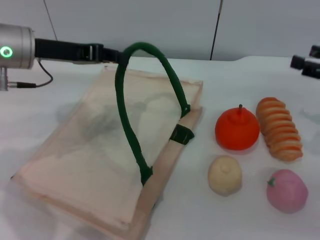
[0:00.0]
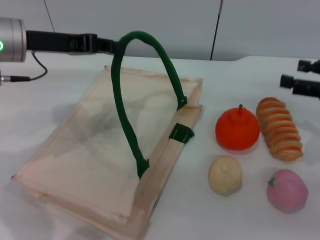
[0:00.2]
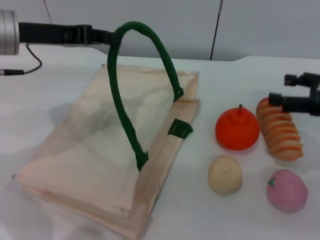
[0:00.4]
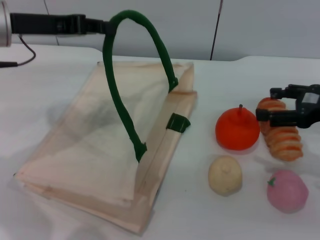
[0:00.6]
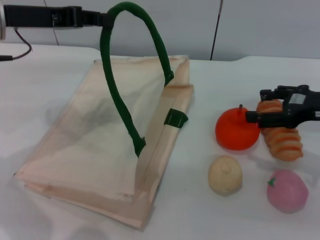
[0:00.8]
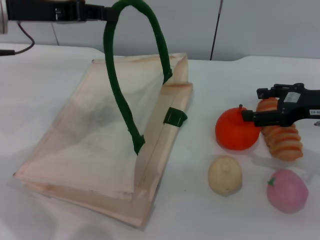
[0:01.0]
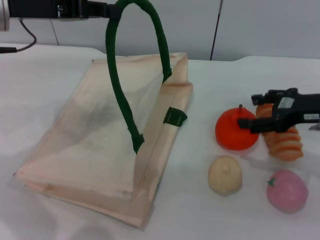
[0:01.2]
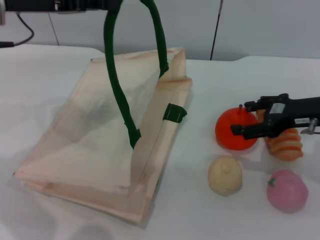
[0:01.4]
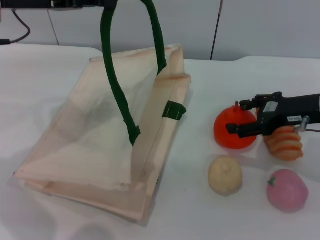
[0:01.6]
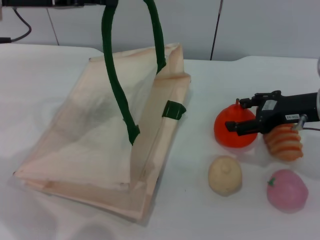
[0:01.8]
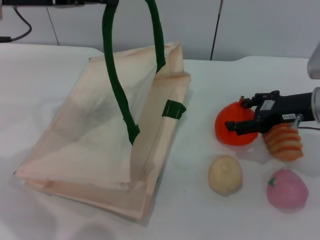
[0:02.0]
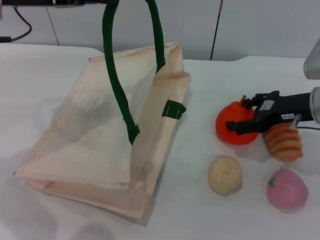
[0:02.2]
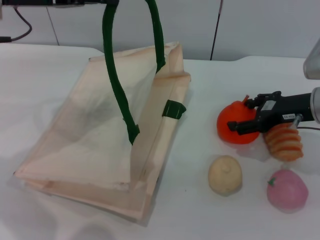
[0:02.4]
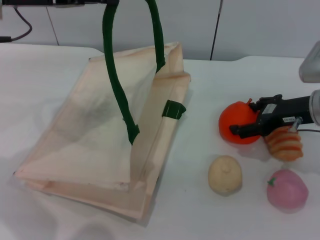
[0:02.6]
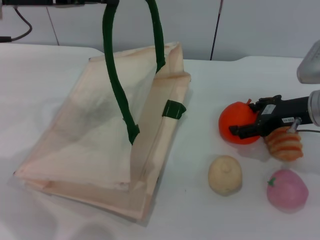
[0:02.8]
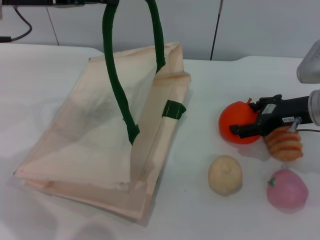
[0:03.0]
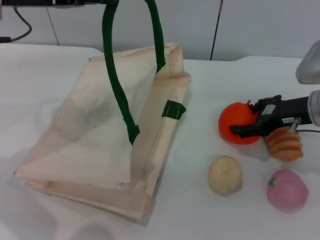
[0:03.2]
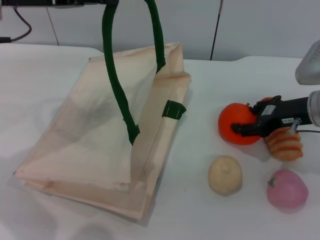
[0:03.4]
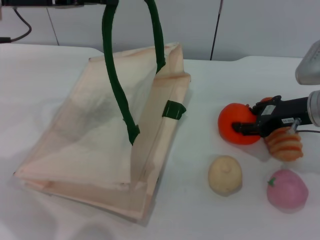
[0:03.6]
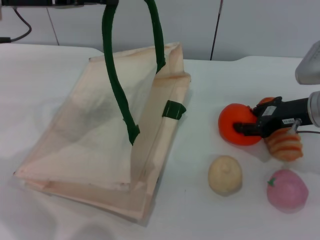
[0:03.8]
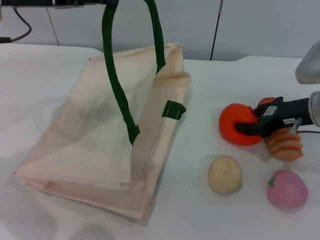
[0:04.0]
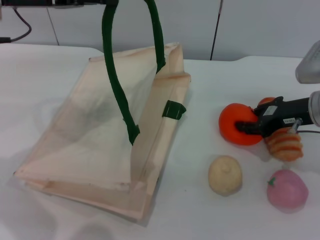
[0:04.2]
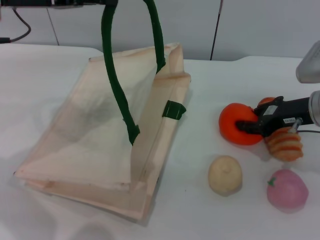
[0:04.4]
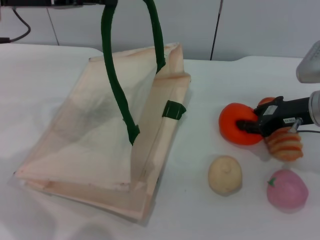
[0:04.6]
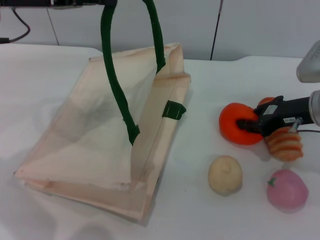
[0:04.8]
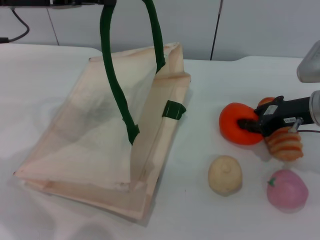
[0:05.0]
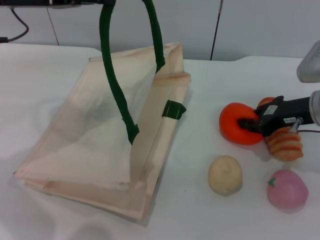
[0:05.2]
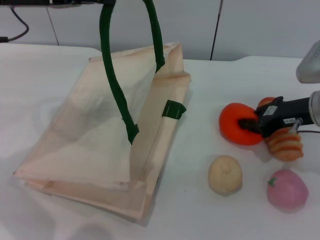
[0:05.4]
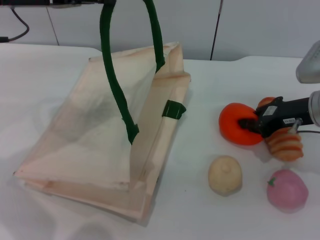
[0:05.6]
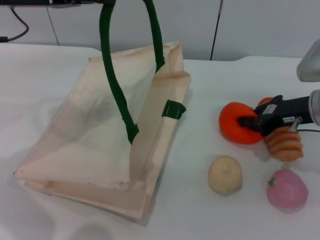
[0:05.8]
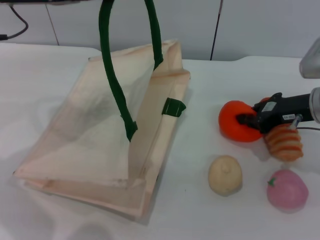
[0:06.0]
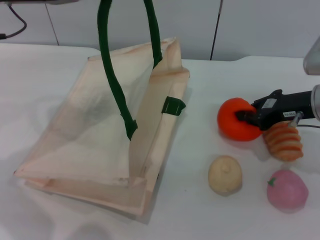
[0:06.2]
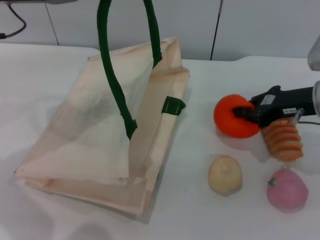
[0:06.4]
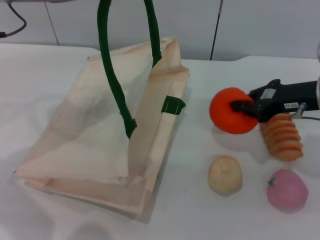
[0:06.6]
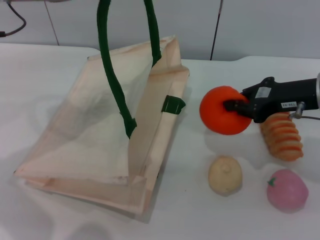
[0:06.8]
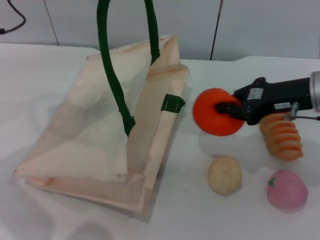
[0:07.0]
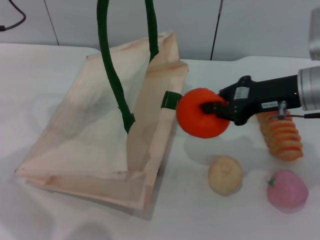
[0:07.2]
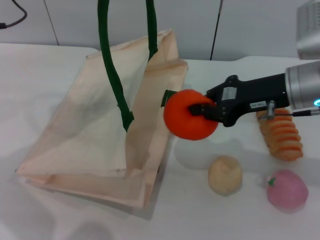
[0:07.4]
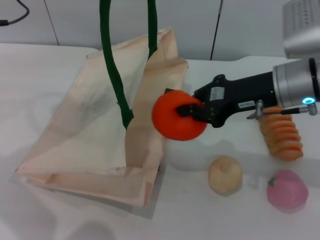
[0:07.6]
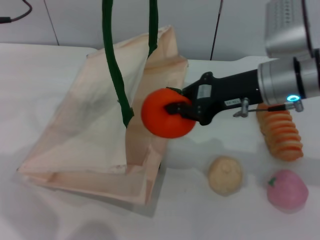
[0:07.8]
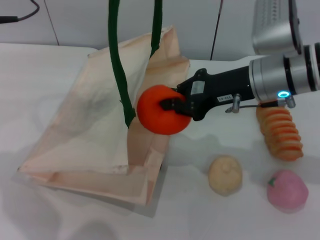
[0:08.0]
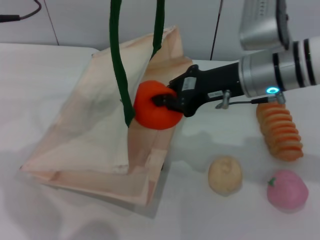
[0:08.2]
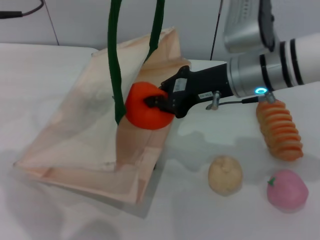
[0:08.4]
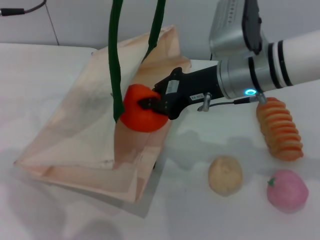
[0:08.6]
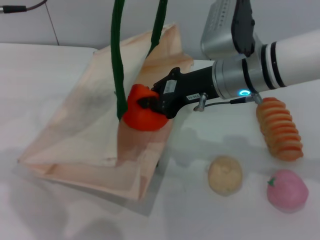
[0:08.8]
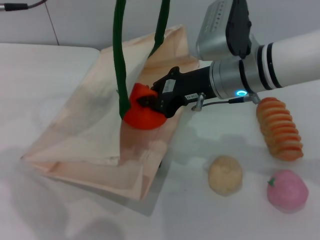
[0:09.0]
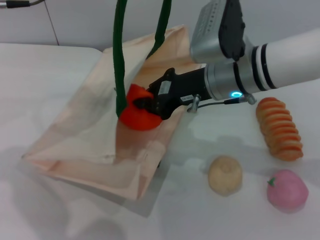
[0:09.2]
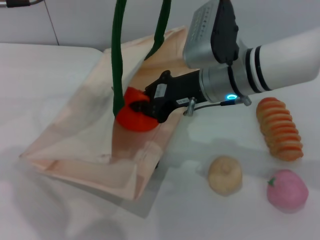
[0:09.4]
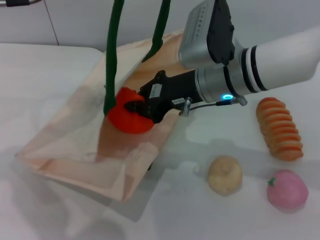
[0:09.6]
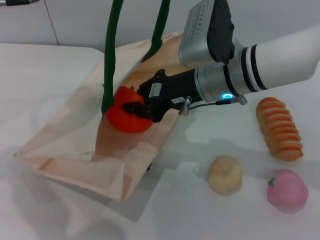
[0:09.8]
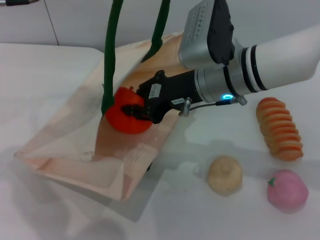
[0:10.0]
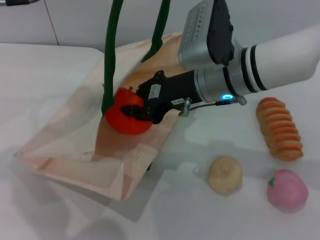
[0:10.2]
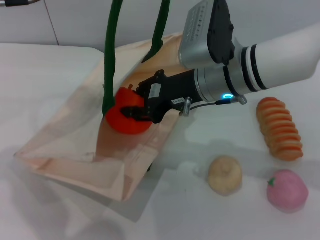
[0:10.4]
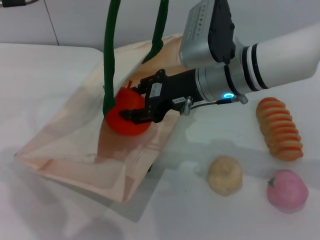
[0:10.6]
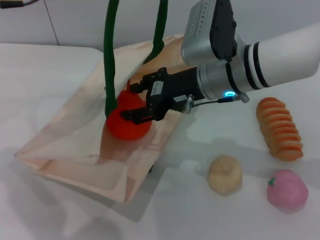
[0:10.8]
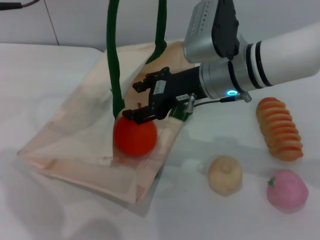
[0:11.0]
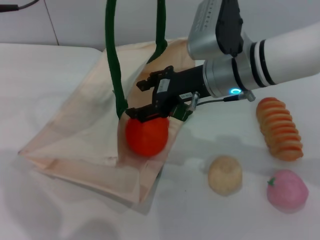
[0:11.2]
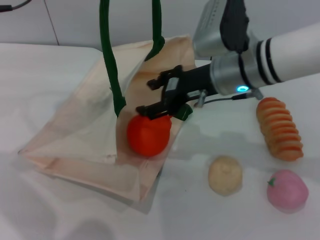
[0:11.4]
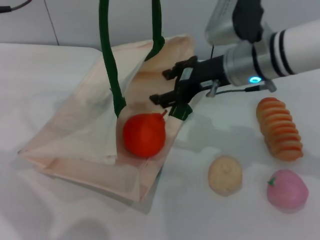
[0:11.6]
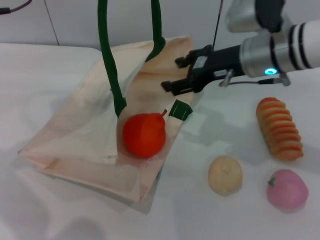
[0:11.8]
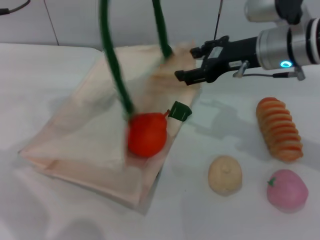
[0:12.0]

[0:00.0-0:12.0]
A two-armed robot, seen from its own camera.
Task of the whole recording: pick up the orange from the table and place it in the white handbag.
Step, 0:00.0 to 0:06.2: Pick up the orange with the right gripper.
Step, 0:06.6 to 0:11.2: Place the orange into the woven bag with the right gripper.
0:00.0 to 0:01.6: The right gripper is displaced to the left by some 10 cm; the left gripper moves upward, approximately 5 cm.
0:01.6 to 0:03.0: The grippers make only small movements.
0:03.0 to 0:04.4: The right gripper closes up.
0:04.4 to 0:06.0: Both grippers stay about where they are.
0:06.0 to 0:07.6: The right gripper is displaced to the left and upward by roughly 10 cm.
0:07.6 to 0:09.0: The right gripper is displaced to the left by approximately 10 cm.
0:09.0 to 0:10.4: The grippers move only a little.
0:10.4 to 0:12.0: The right gripper moves to the right, roughly 10 cm, and opens its fingers.

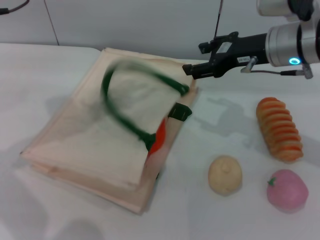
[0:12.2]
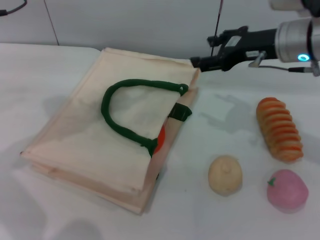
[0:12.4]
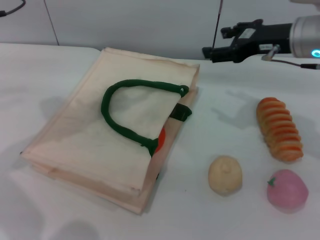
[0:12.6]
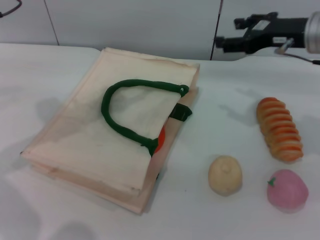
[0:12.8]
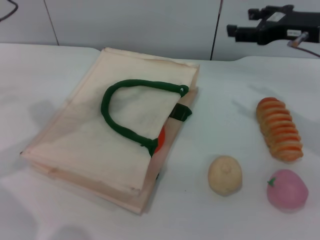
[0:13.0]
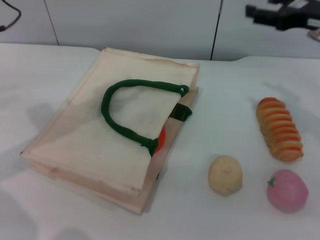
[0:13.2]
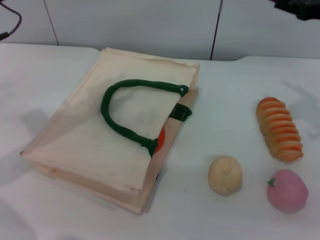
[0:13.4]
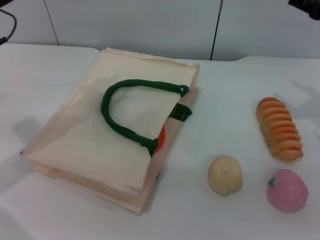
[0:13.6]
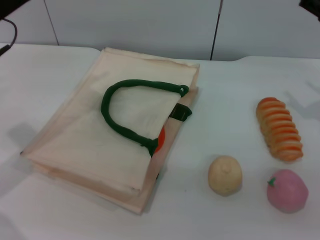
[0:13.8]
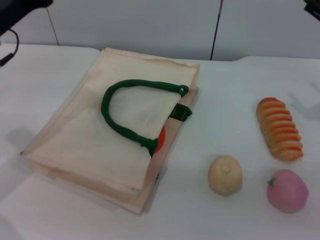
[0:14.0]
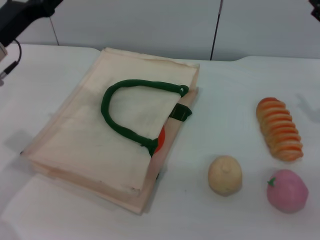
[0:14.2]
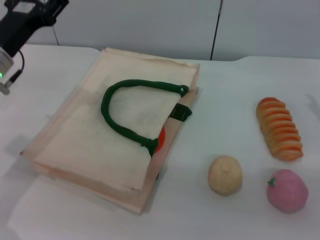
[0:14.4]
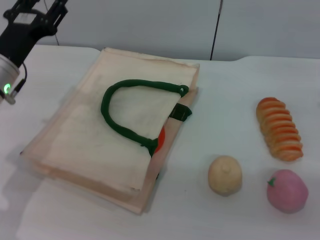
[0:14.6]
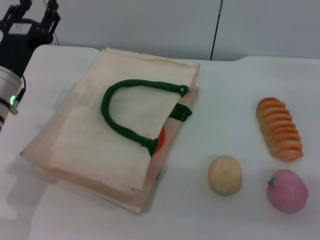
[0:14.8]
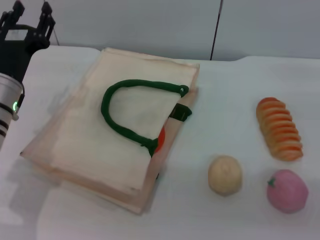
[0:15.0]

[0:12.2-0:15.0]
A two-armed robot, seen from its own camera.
Task of the whole recording: pick up the orange from the table and place it in the white handbag.
0:12.2 to 0:13.6: The right gripper goes roughly 15 cm to the right, while the left gripper shifts roughly 5 cm downward, and opens its fingers.
0:13.6 to 0:15.0: The left gripper goes approximately 15 cm downward.
